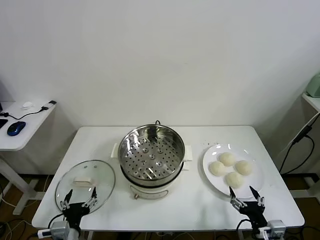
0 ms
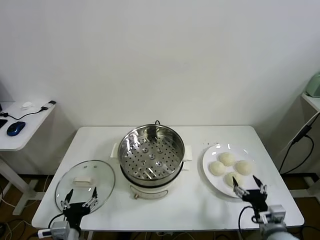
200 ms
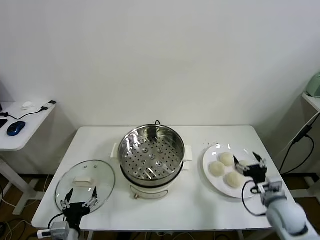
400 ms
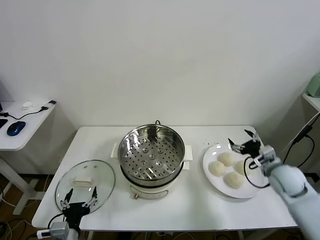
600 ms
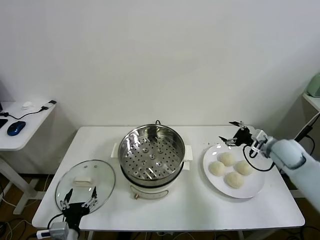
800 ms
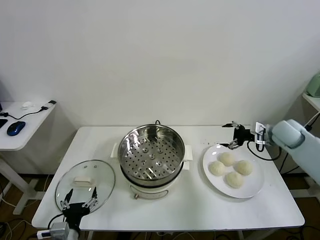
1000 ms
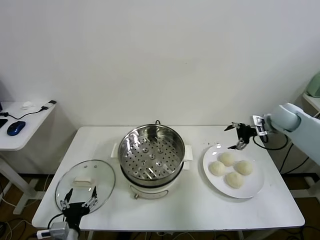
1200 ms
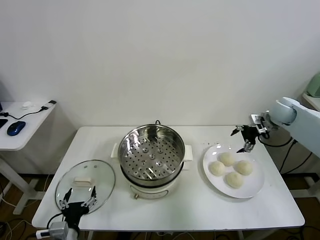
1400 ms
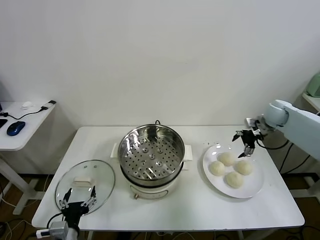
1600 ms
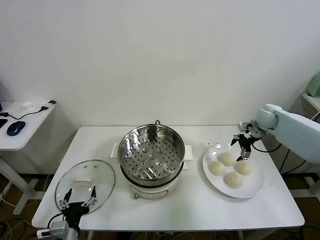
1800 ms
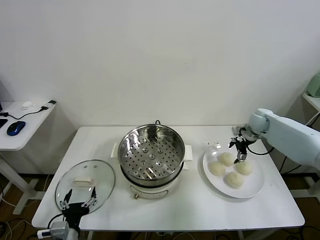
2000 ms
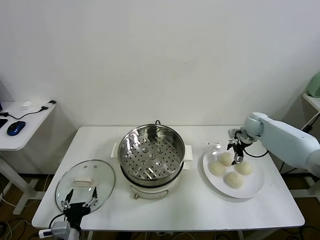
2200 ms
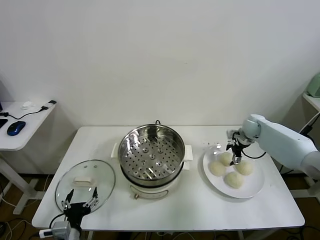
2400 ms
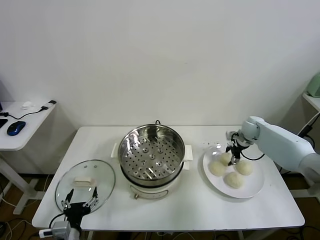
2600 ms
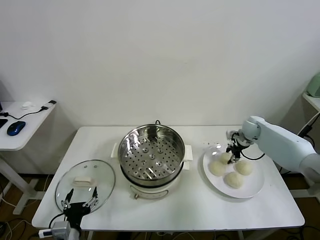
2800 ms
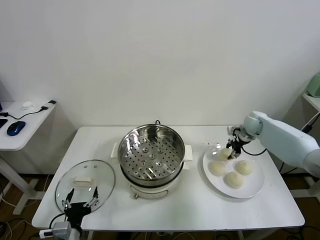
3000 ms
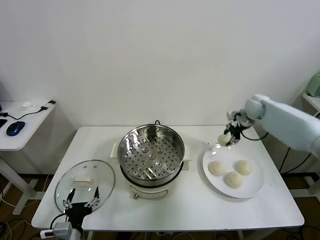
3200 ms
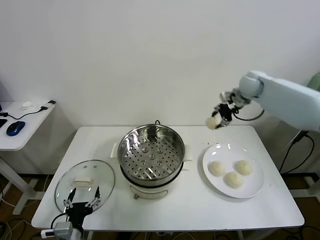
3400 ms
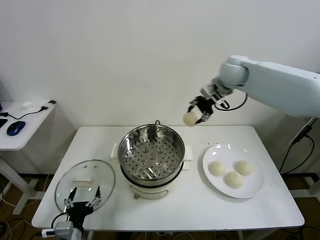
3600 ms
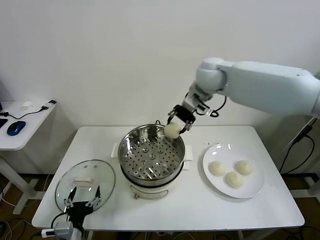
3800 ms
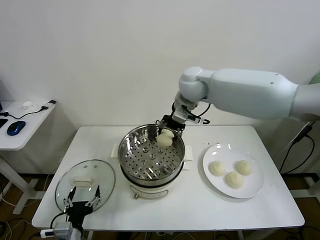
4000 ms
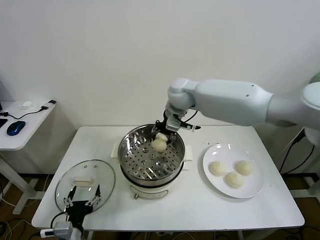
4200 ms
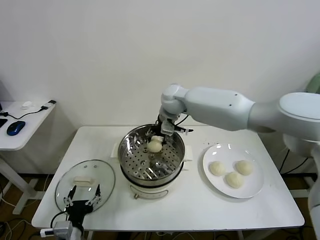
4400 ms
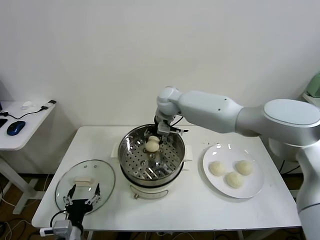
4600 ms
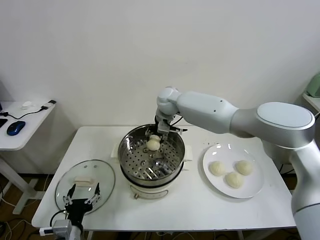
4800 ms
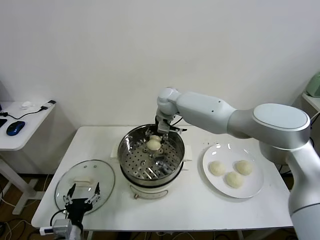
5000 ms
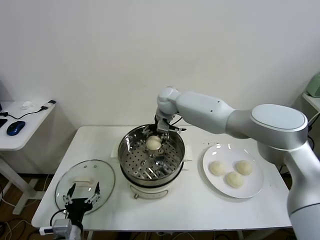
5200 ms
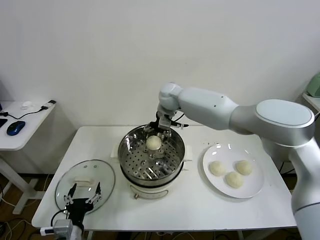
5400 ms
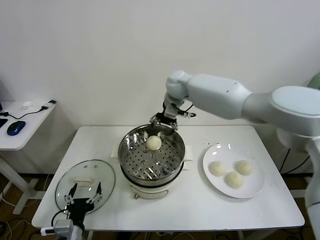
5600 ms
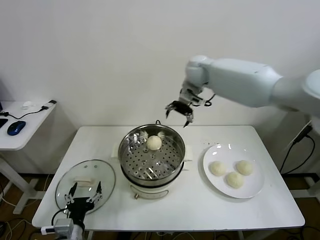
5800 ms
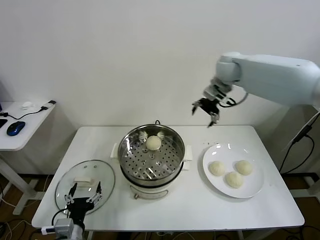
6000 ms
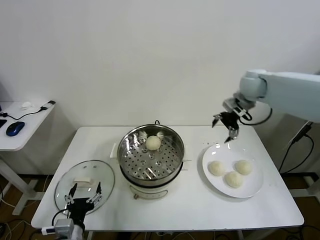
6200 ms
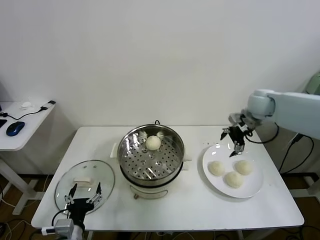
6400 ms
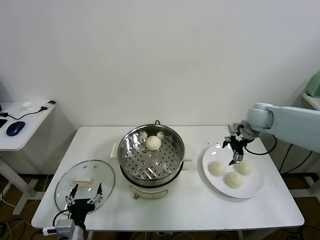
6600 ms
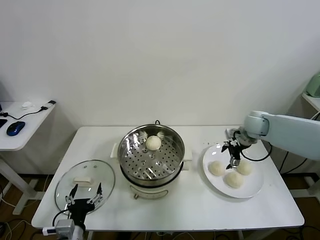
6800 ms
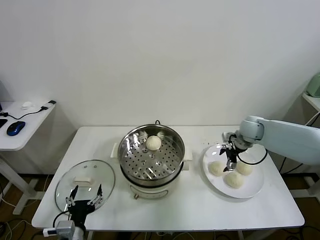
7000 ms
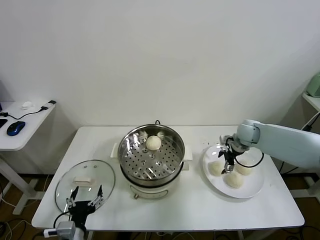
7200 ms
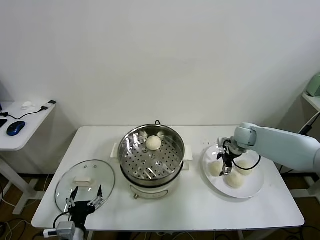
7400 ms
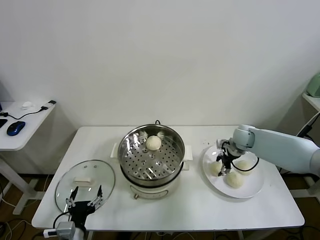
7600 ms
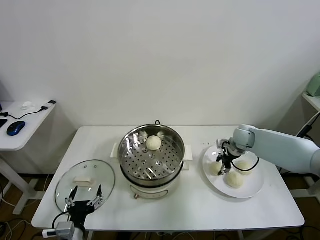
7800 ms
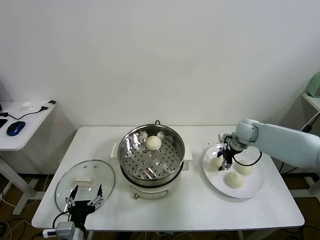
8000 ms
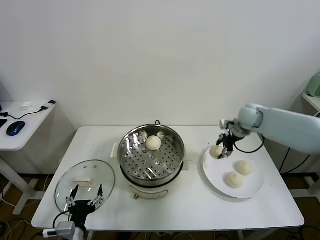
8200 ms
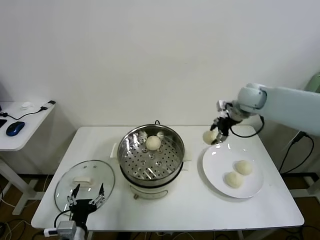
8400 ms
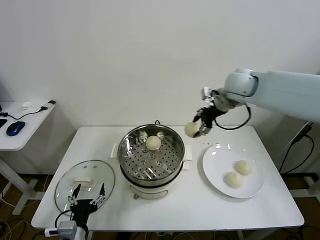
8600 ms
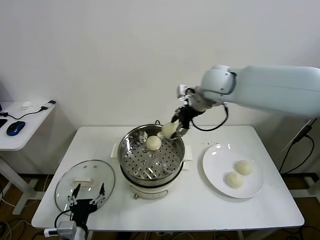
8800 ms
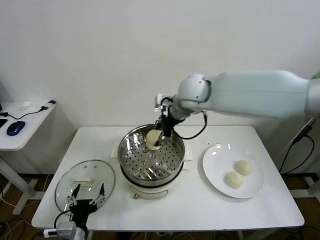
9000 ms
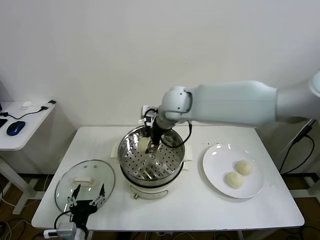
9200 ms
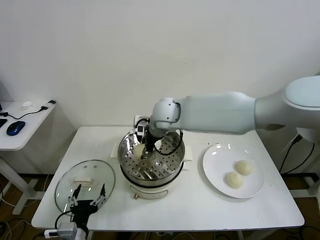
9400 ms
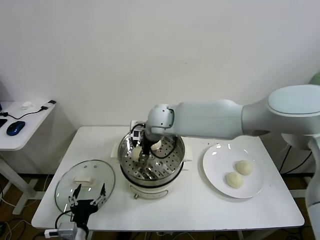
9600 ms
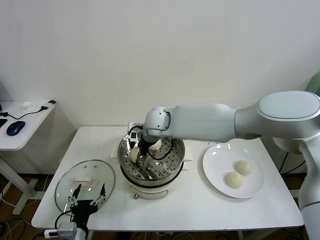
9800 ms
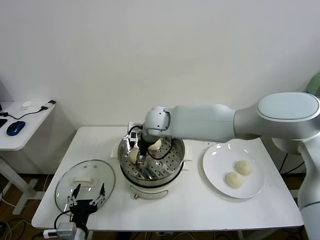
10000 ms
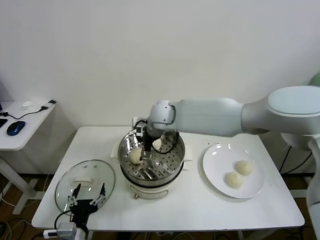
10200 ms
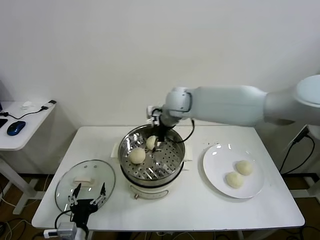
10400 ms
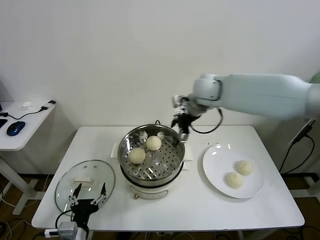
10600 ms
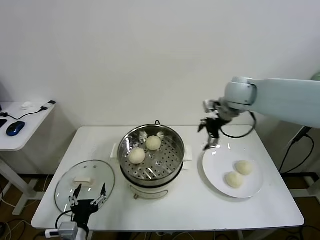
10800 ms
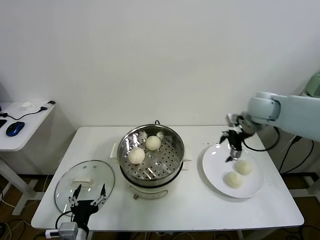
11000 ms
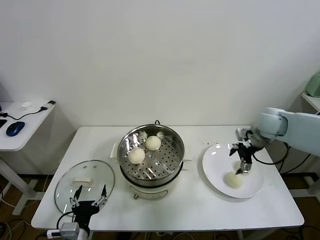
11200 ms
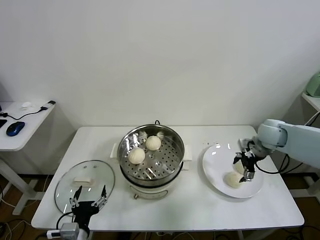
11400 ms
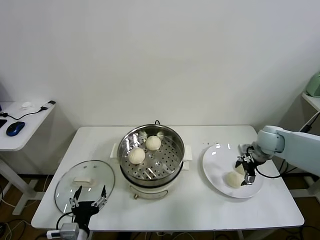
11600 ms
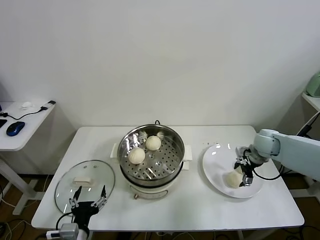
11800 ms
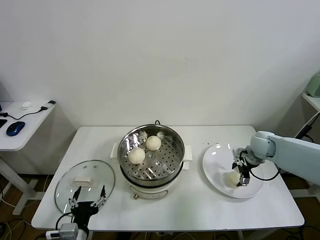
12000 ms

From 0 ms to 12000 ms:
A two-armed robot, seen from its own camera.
Task of the whole recording: take steamed baozi put them in steamer.
Step, from 0 ms to 2600 ms: Grasp the baozi in the plate with right gripper.
Step, from 3000 ms to 5200 ms: Place the baozi on the steamer with right gripper.
Step, from 5400 ms to 7600 ms: Grasp the baozi in the plate with right gripper.
Step, from 7800 ms to 10000 ms: Place the baozi on the steamer with right gripper.
From 1600 ms to 3000 ms: The right gripper heads downward, covering some 5 cm, and closes.
From 3000 ms to 4400 ms: The right gripper shifts some 35 cm to the left.
From 4400 ms to 6000 ms: The right gripper is displaced to the right and upward by some 20 cm, and opens.
From 6000 ms to 7600 ms: The right gripper shifts approximately 25 cm downward.
From 7600 ms to 9000 ms: The right gripper travels to the left and upward by roughly 35 cm.
From 9000 ms to 10400 ms: The right gripper moves downward, approximately 5 cm, and opens.
From 10400 ms to 12000 ms: The right gripper shifts about 35 cm to the right and downward.

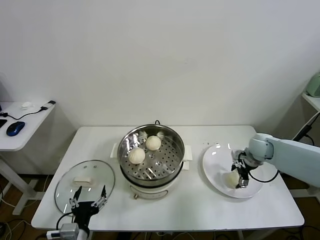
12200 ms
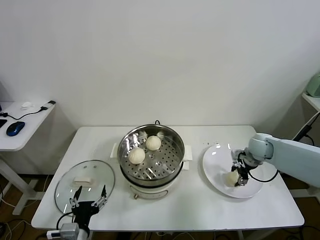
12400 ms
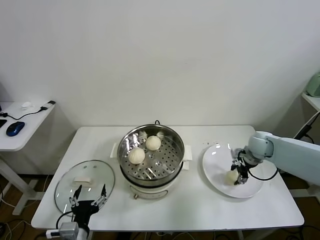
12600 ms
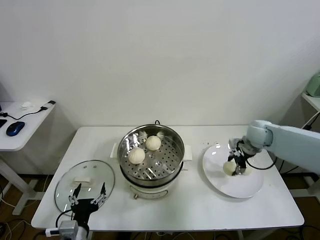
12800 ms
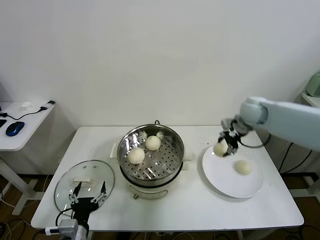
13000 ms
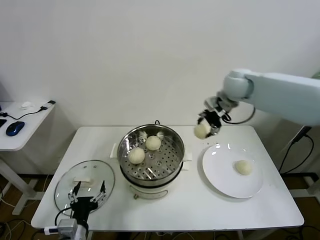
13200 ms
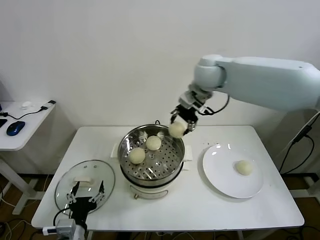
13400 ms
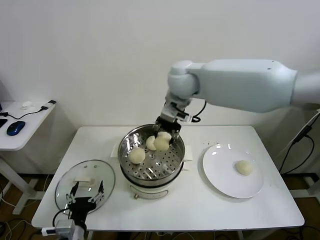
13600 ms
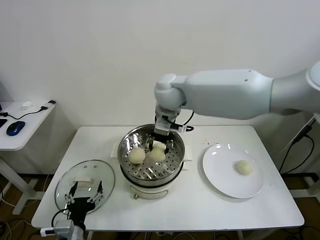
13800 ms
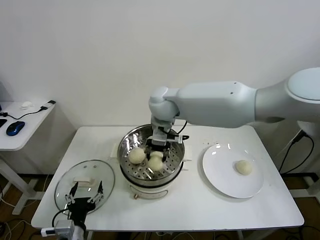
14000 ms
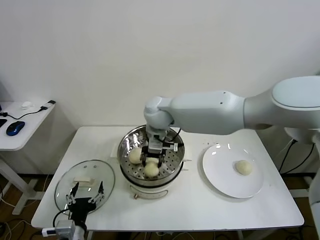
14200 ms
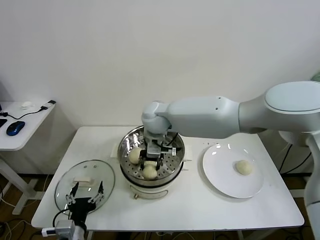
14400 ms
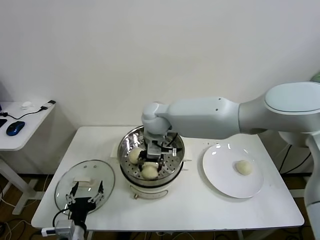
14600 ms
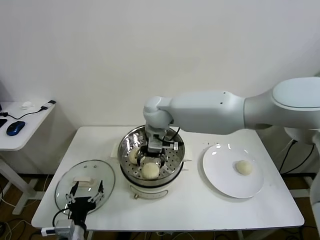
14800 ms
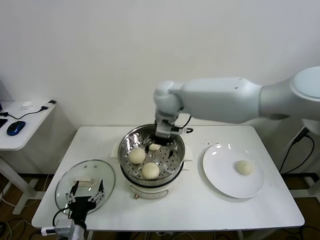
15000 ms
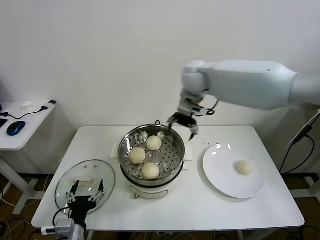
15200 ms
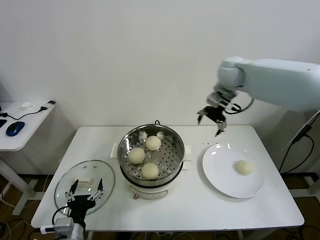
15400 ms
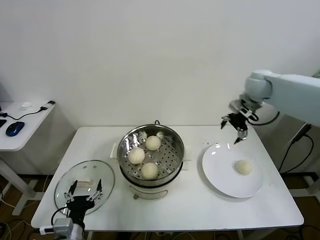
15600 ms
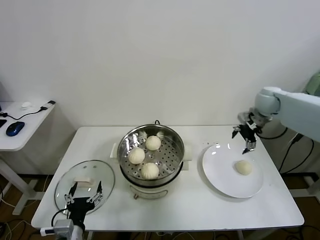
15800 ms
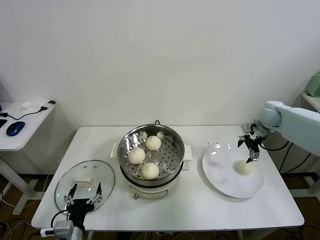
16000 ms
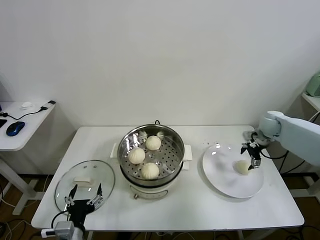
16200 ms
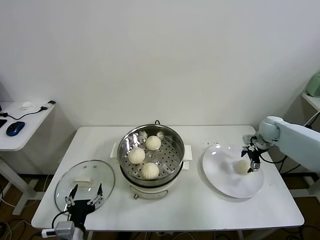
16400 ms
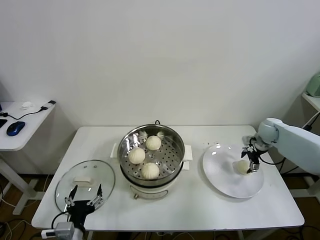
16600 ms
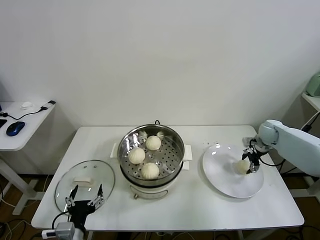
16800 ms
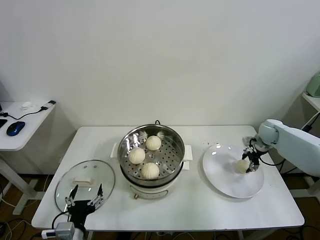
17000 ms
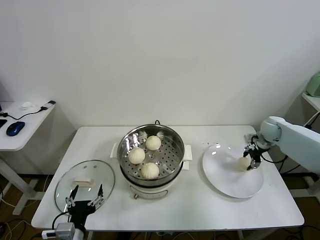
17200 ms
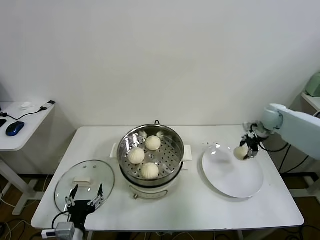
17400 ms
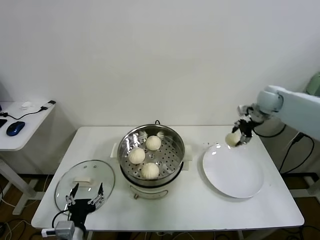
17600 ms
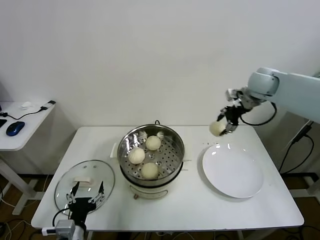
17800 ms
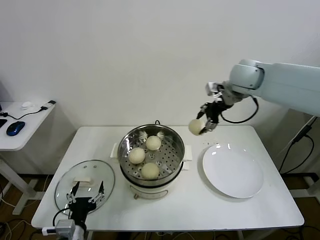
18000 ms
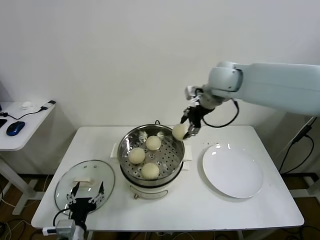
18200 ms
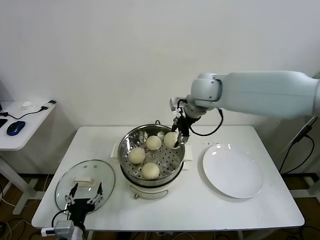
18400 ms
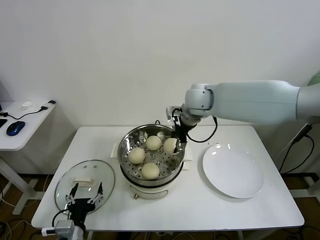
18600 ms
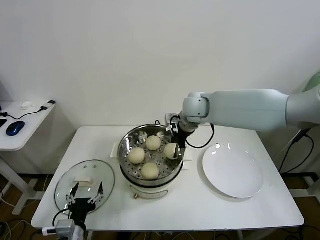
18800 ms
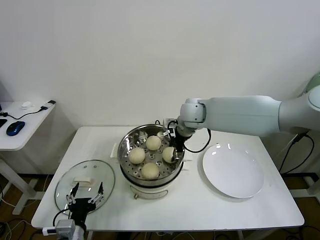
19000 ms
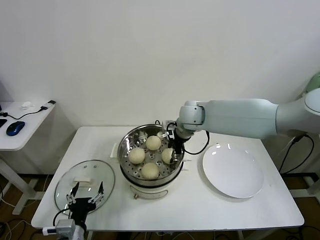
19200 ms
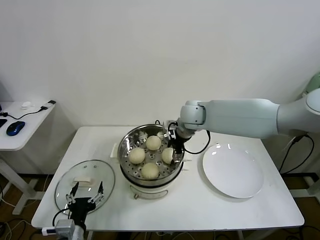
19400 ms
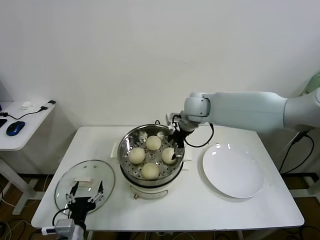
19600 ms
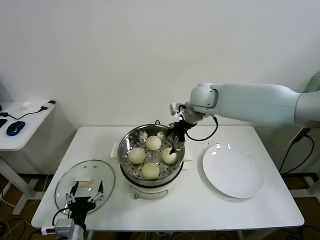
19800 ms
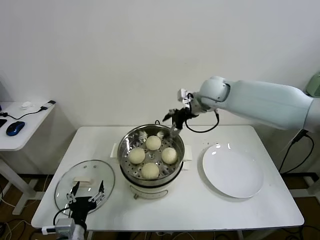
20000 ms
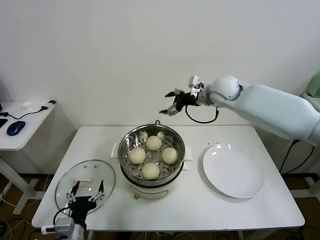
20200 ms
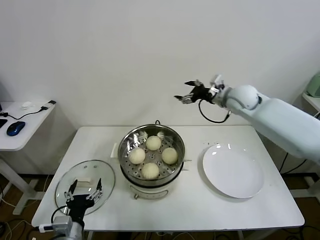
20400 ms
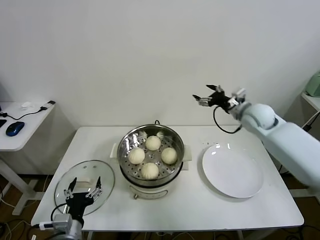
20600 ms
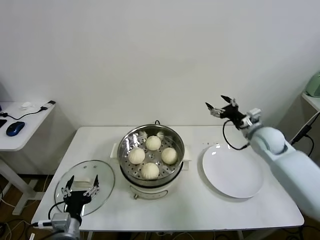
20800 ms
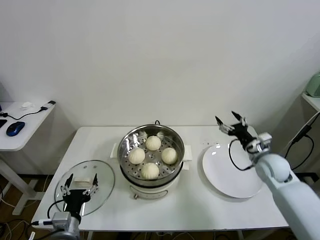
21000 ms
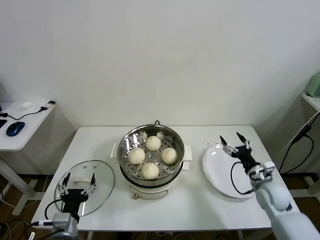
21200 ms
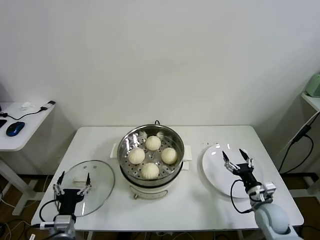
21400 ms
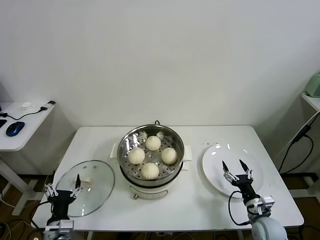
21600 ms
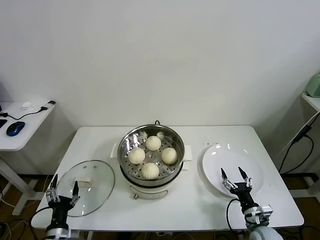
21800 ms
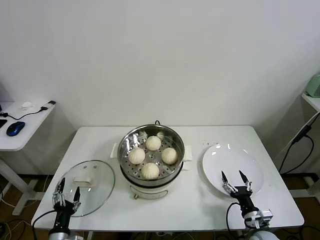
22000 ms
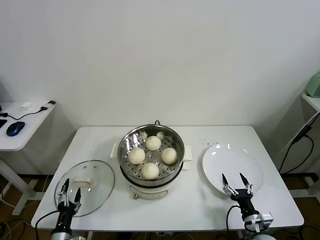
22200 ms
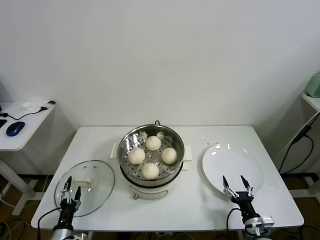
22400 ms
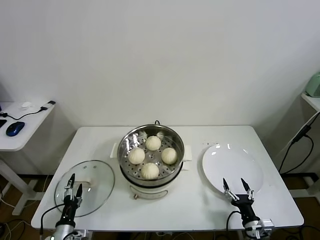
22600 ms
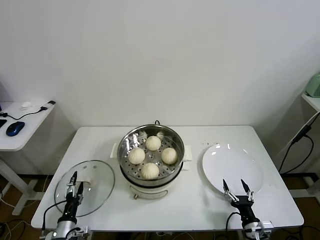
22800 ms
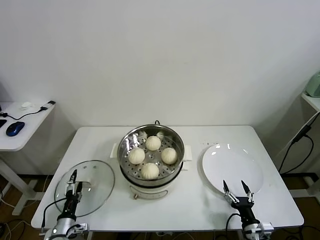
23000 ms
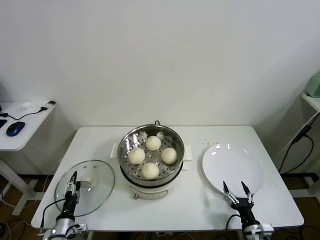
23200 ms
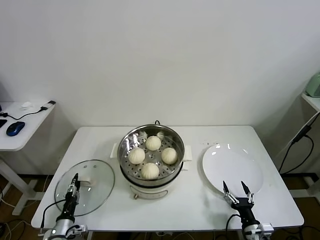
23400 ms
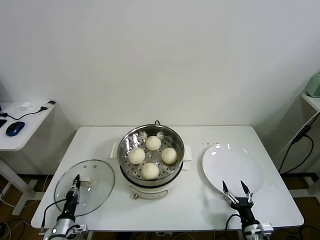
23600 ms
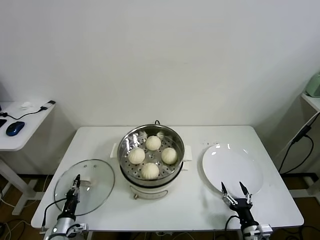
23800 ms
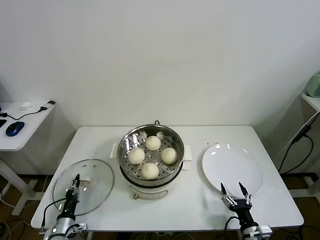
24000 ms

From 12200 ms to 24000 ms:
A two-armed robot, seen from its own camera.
Task of the whole recording: take steamed baozi put them in steamer.
Step, from 12600 ms to 14800 ms: Place the baozi on the steamer with right gripper.
Step, from 15000 ms to 16800 ms: Grasp the baozi in the plate with right gripper.
Step, from 17000 ms to 19400 ms: Place the baozi on the steamer with right gripper.
Step, from 19800 ms to 23800 ms: Grasp the pot lid with left gripper.
From 12200 ms to 13600 ms: The right gripper heads to the left and upward, covering some 40 cm, and closes.
From 13600 ms to 15200 ms: The right gripper heads to the right, covering approximately 5 cm, and opens.
From 15200 ms to 16600 ms: The right gripper heads to the right and downward, covering approximately 40 cm.
From 16600 ms to 18200 ms: The right gripper moves to the left and upward, about 35 cm, and closes.
From 18200 ms to 19600 ms: The right gripper is displaced downward and to the left by some 15 cm, and opens its fingers.
From 19600 ms to 21000 ms: The right gripper shifts about 30 cm to the right, downward and backward.
From 21000 ms to 22600 ms: The right gripper shifts roughly 30 cm backward and downward, while the left gripper travels downward and to the left by some 15 cm.
From 22600 ms to 24000 ms: The left gripper changes place by approximately 5 cm, and closes up.
